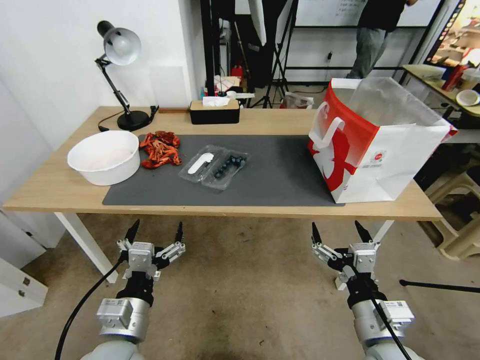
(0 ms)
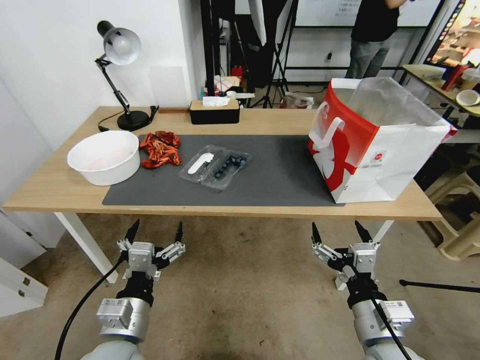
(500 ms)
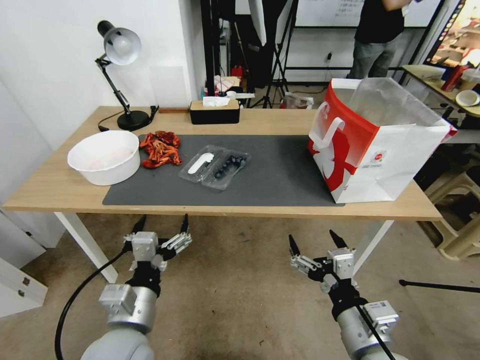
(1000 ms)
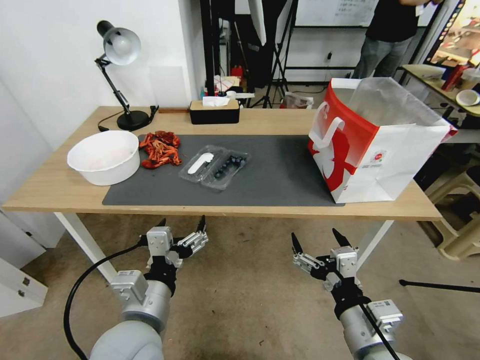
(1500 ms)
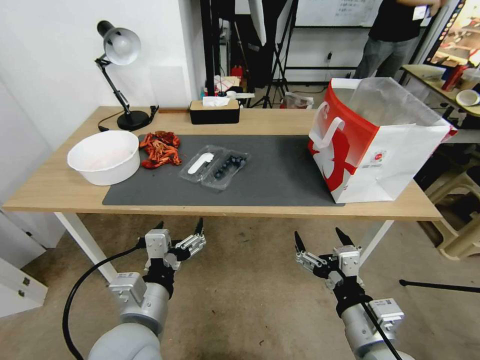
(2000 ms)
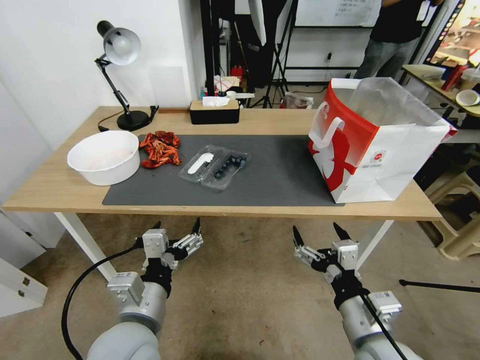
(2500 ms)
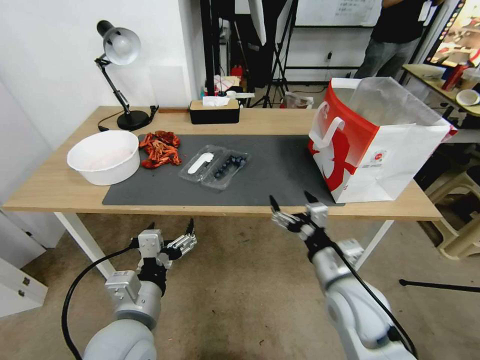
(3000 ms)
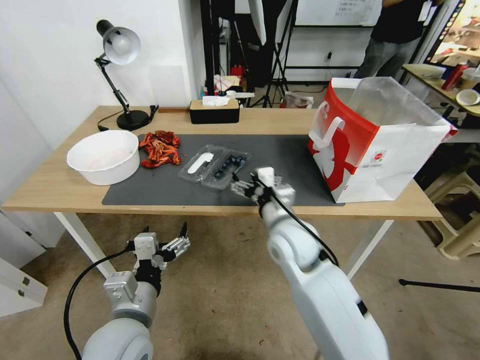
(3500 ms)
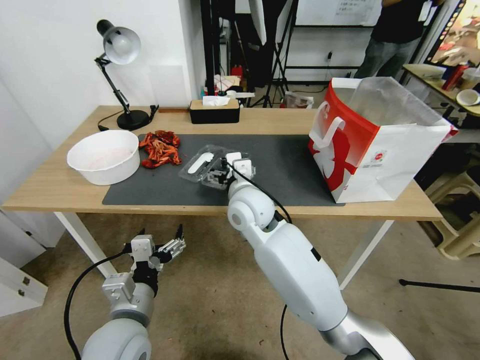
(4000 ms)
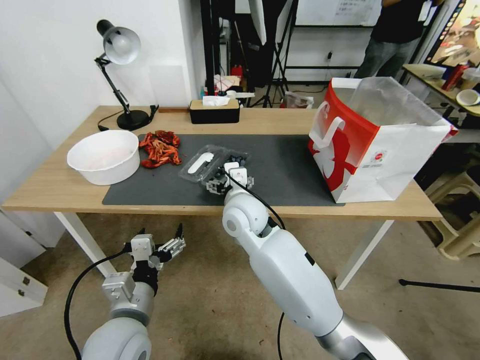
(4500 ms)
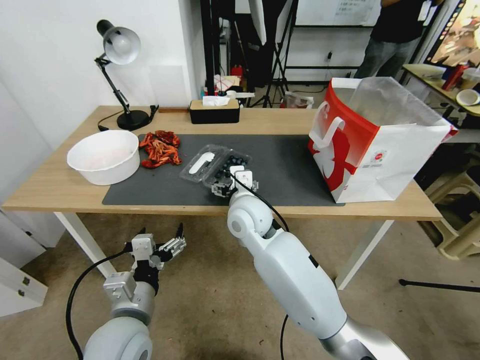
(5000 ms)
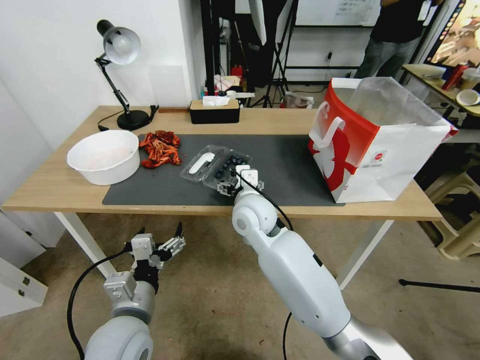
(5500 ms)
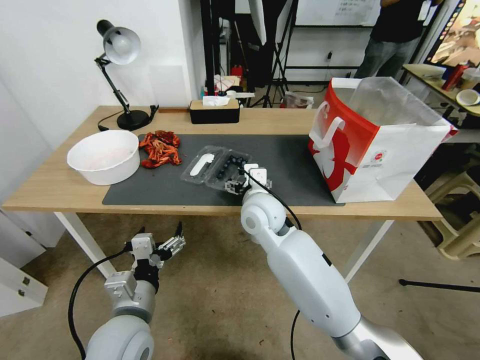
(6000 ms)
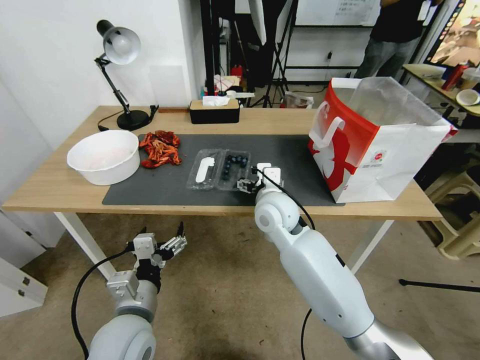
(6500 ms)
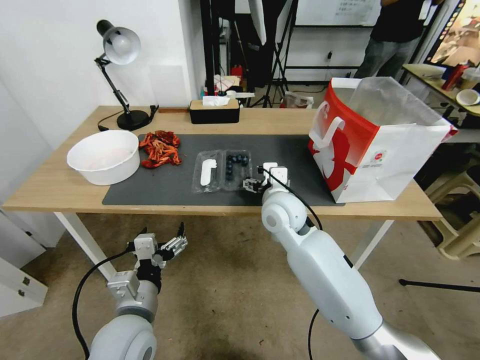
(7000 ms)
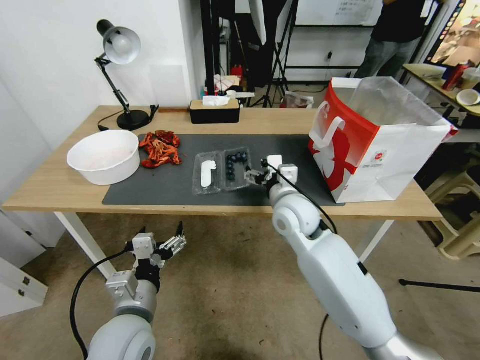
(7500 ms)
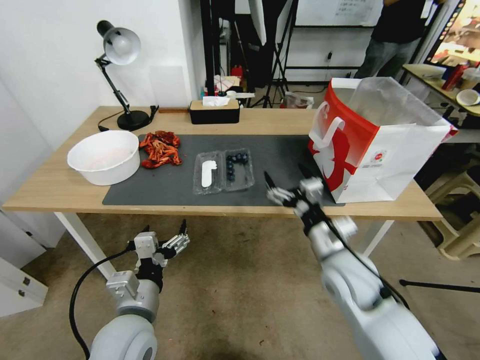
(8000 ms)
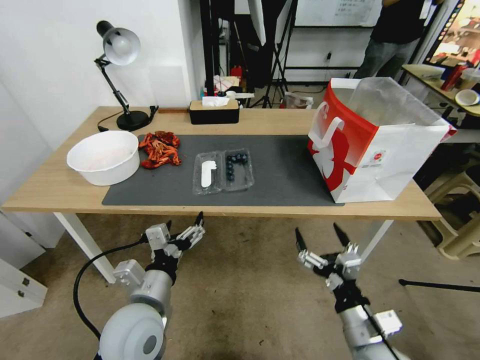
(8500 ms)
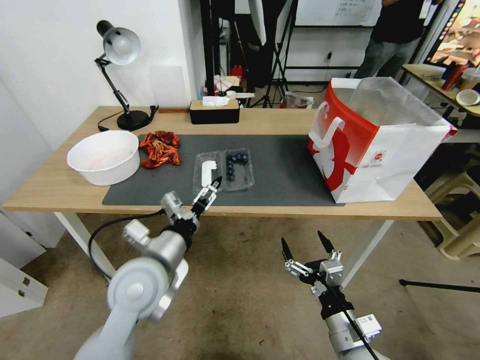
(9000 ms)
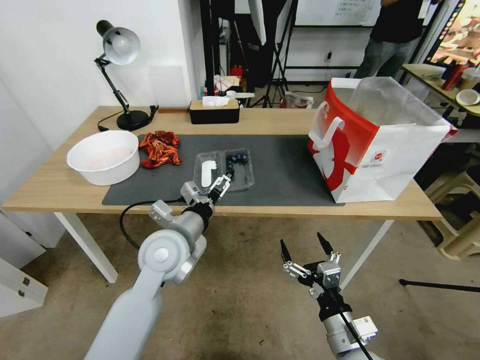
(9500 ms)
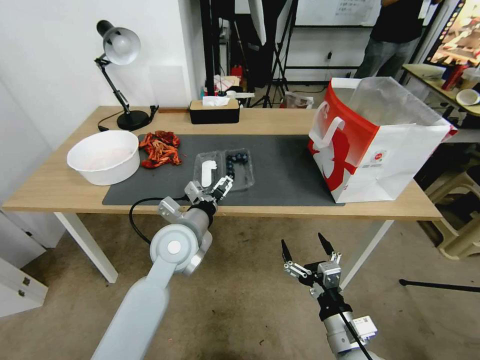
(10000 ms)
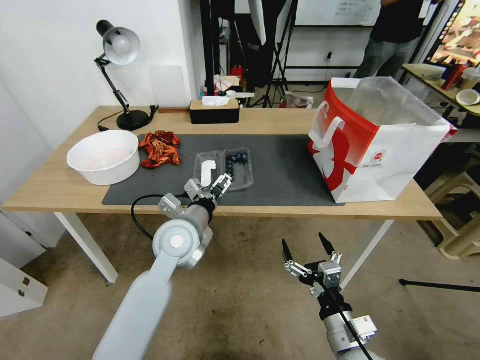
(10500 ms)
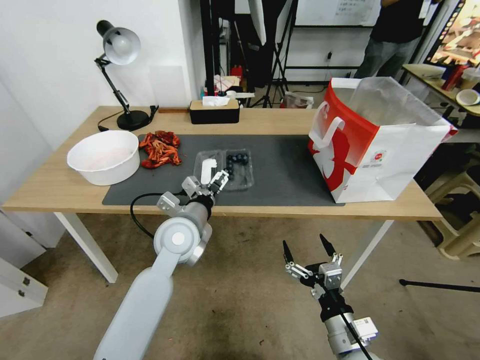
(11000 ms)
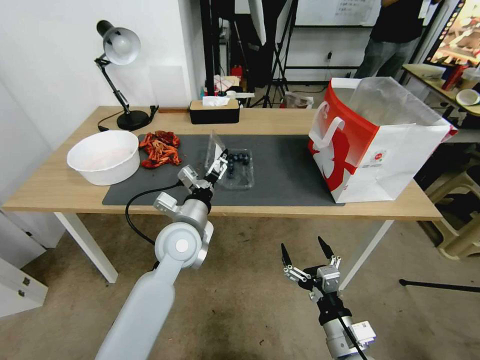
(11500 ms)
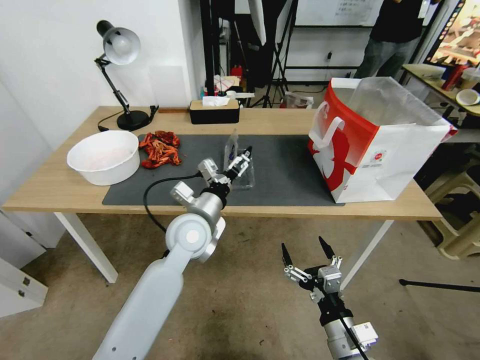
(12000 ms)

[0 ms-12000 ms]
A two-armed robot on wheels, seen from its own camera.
Task of the whole recording: Close the takeout container lid, then place the container into the takeout bag.
2000 ms to 4000 ms: The right gripper goes approximately 35 cm forward and to the left. Meanwhile the left gripper moves some 5 cm.
4000 ms to 6000 ms: The grippers make only small movements.
6000 ms to 8000 ms: The right gripper moves to the right and backward, roughly 20 cm.
8000 ms to 10000 ms: The right gripper shifts roughly 20 cm backward and downward, while the left gripper shifts approximately 15 cm forward.

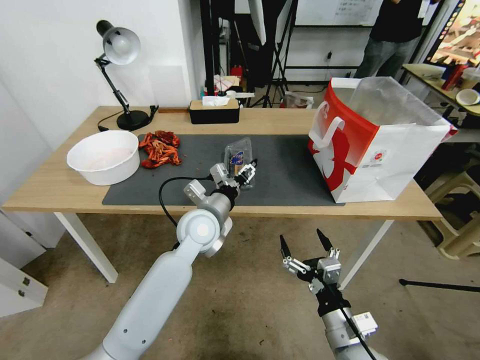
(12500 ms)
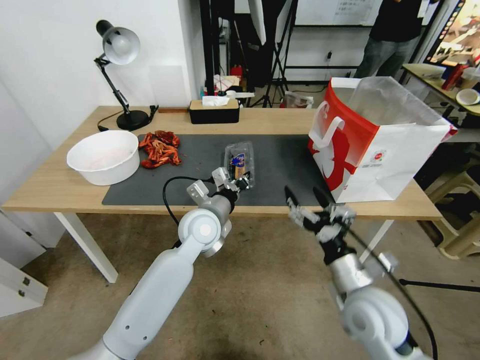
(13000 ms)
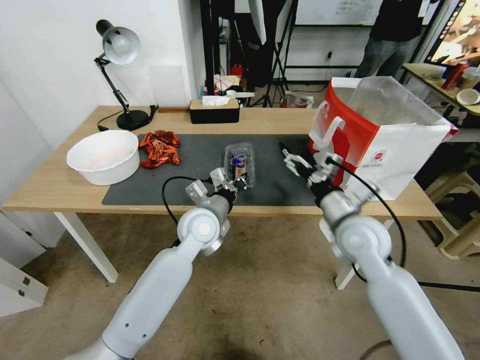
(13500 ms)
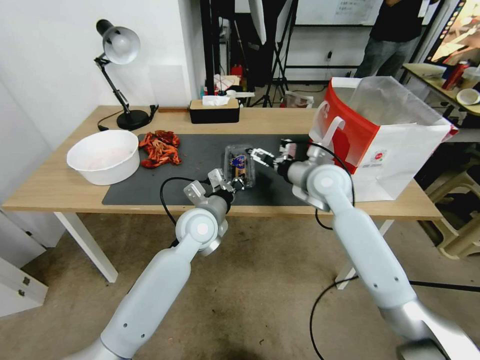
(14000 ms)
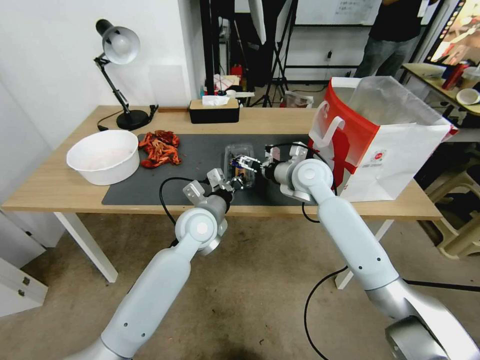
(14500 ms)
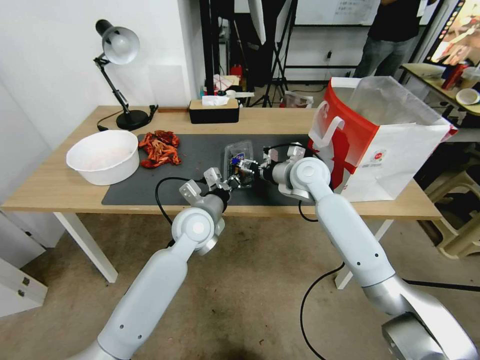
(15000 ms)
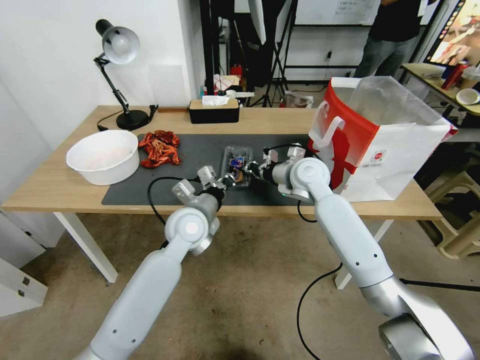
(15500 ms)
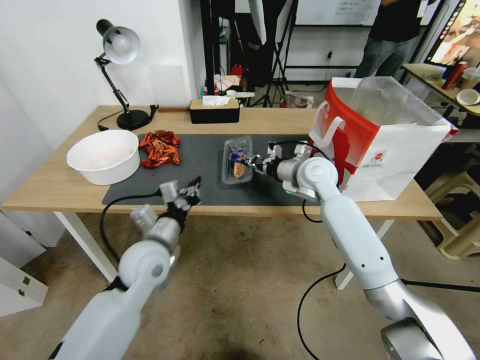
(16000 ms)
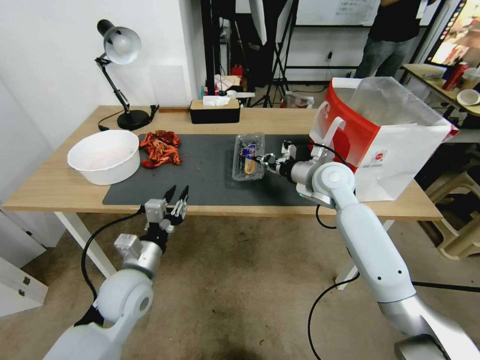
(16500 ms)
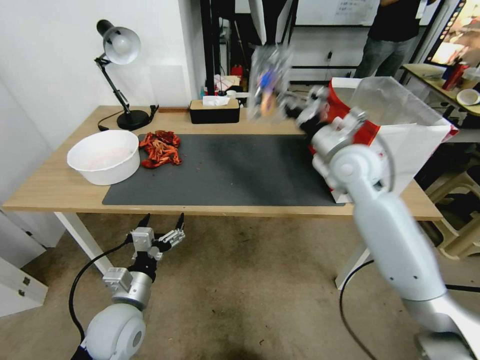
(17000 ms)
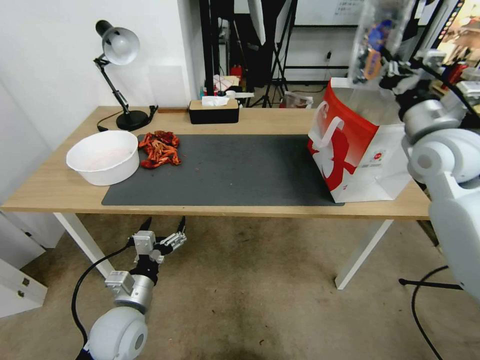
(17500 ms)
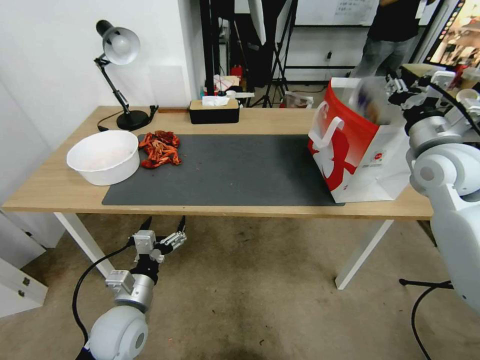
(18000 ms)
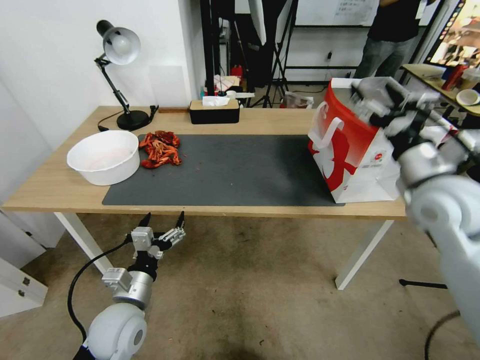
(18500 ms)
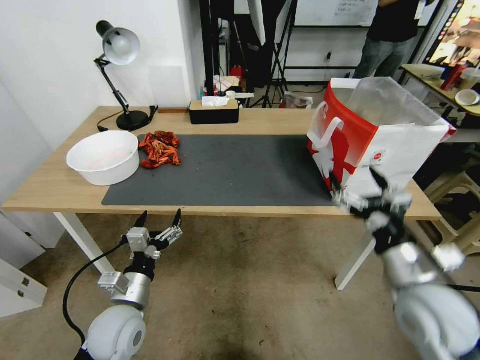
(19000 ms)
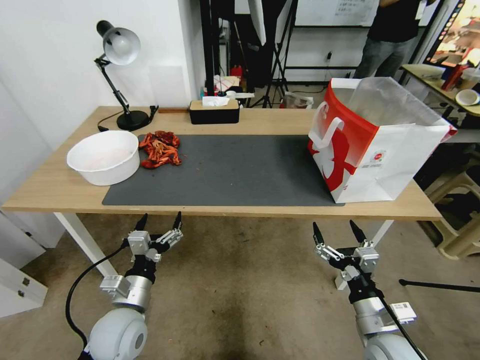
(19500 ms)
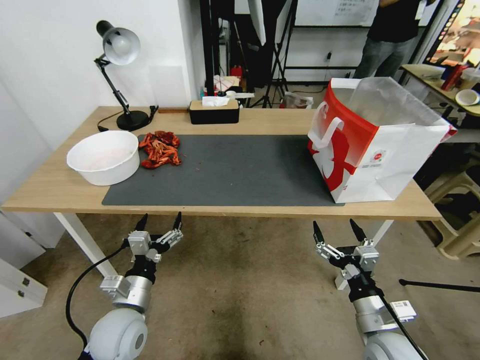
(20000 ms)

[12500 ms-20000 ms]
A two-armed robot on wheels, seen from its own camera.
Task of the whole recording: Close the takeout container lid, then place the container into the takeout bag.
12500 ms to 14500 ms: The left gripper closes; the right gripper heads forward and upward, covering some 35 cm.
14500 ms to 16500 ms: The left gripper moves backward and to the left, some 20 cm, and opens up, while the right gripper closes up.
16500 ms to 18000 ms: The left gripper heads backward, covering roughly 5 cm, and opens up. The right gripper shifts approximately 20 cm to the right, upward and backward.
18000 ms to 20000 ms: The right gripper is displaced downward and backward by about 35 cm, and opens.

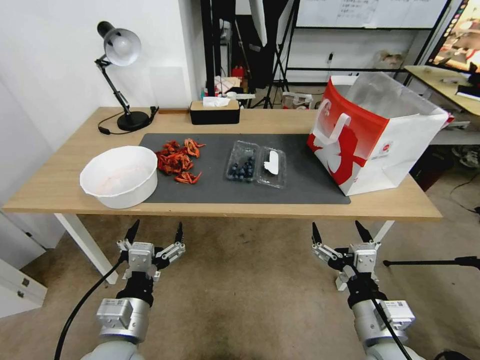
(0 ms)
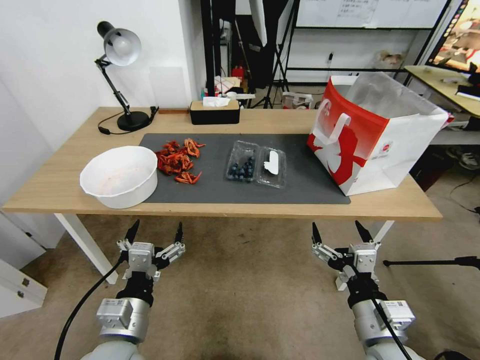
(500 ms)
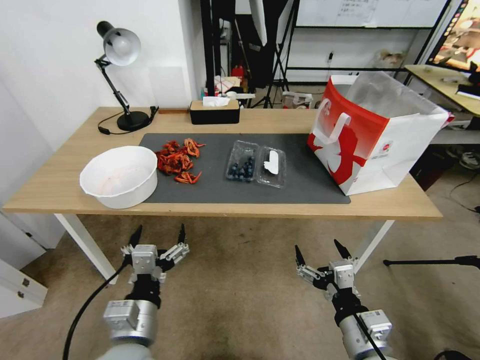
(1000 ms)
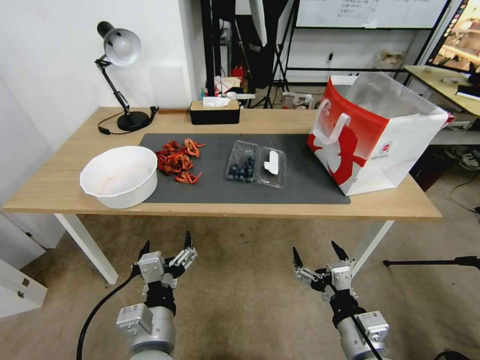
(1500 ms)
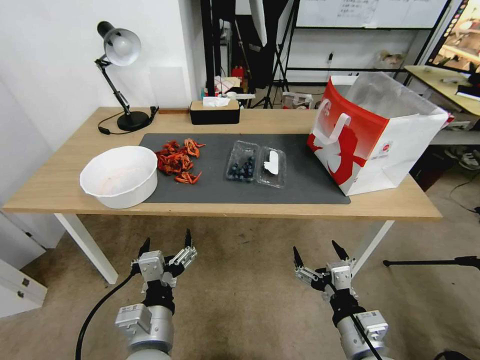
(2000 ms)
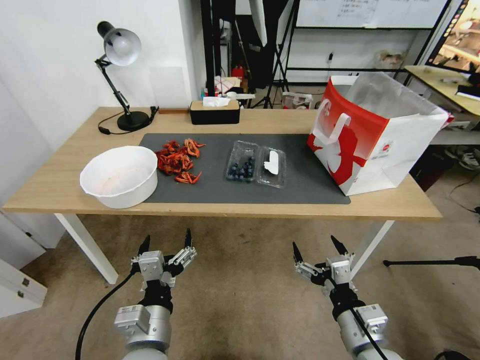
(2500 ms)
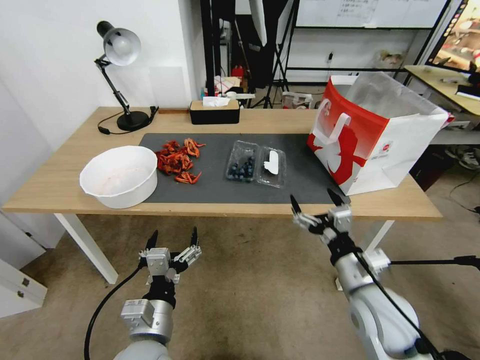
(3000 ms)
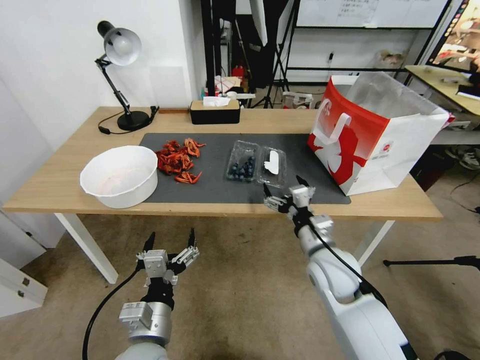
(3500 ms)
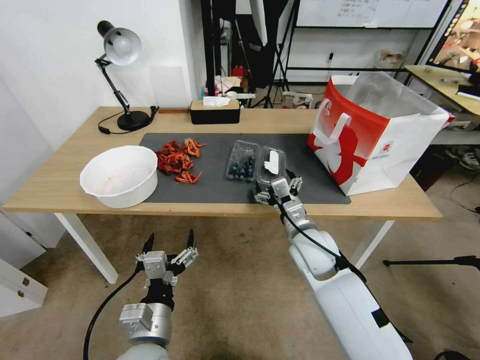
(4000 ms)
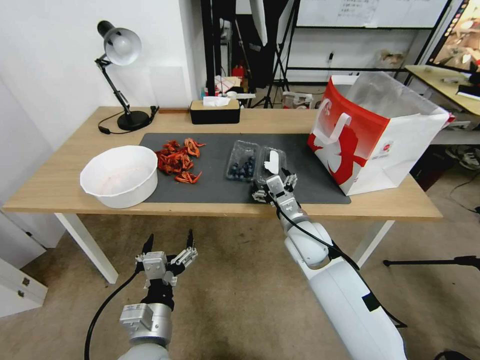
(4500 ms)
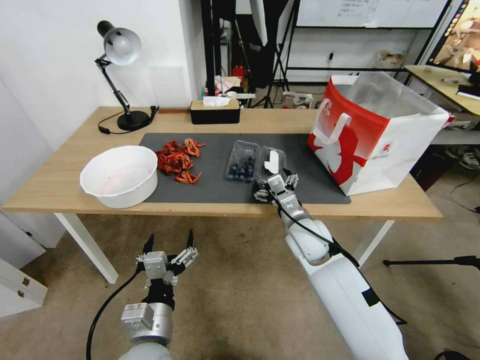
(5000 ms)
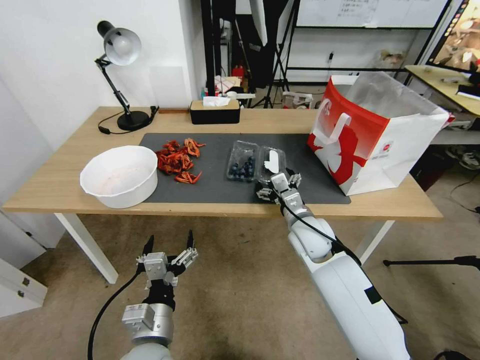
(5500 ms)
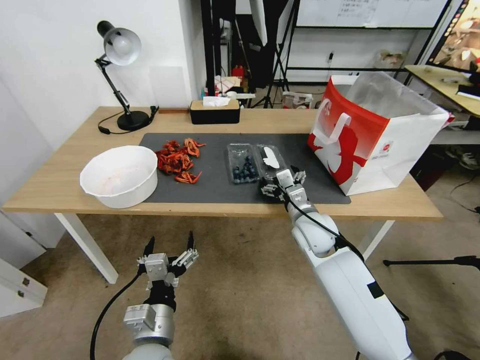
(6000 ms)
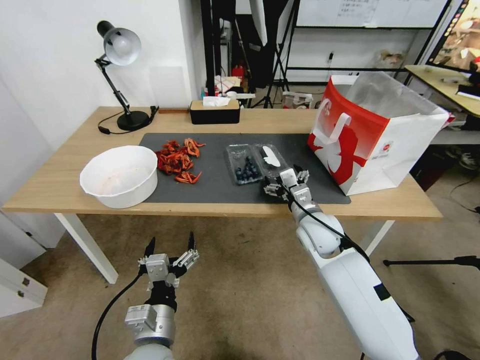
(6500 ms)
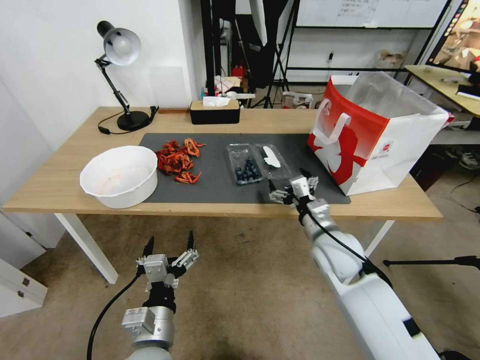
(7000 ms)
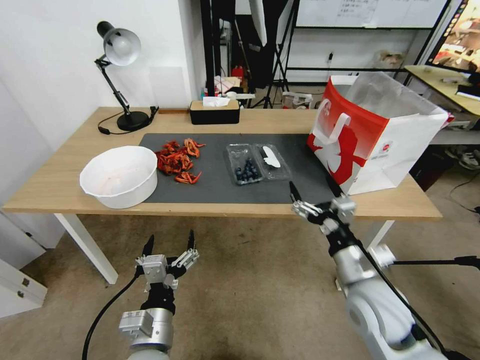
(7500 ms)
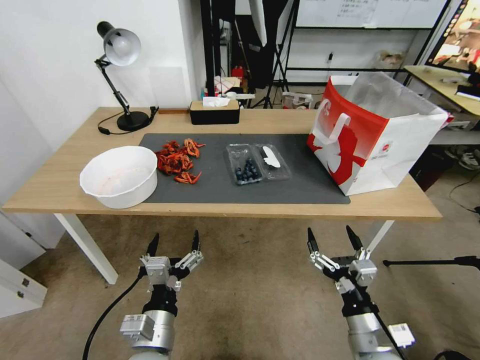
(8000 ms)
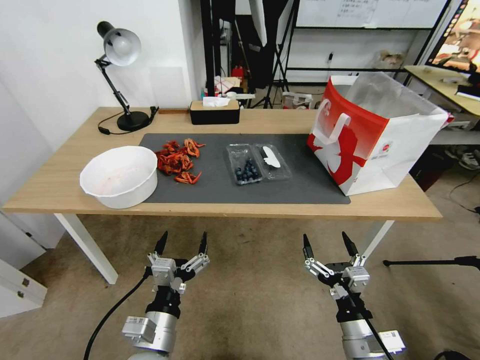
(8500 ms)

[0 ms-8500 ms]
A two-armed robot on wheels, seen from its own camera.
Task of the whole recording: Close the takeout container lid, then place the container into the takeout bag.
2000 ms to 4000 ms: The right gripper travels forward by roughly 20 cm.
4000 ms to 6500 ms: The grippers move only a little.
6500 ms to 8500 ms: The right gripper shifts some 25 cm backward.
